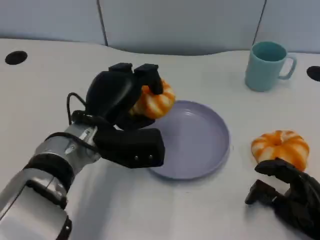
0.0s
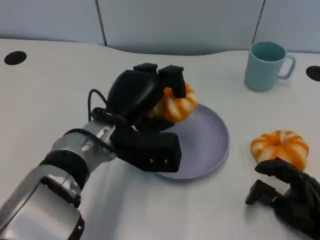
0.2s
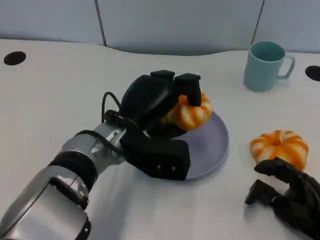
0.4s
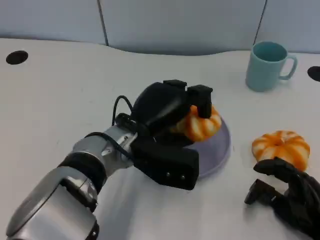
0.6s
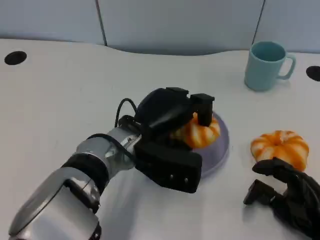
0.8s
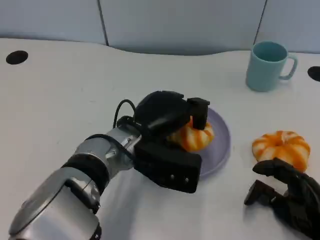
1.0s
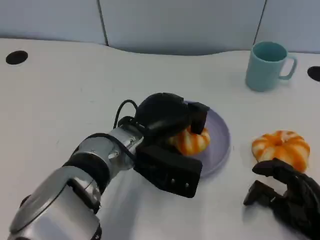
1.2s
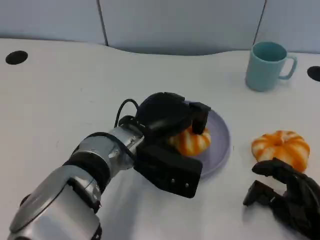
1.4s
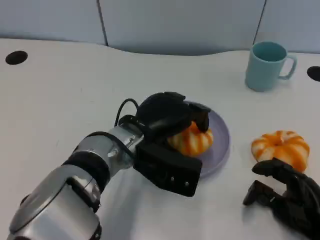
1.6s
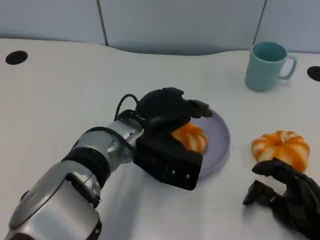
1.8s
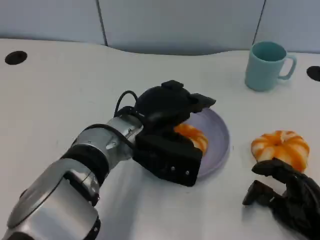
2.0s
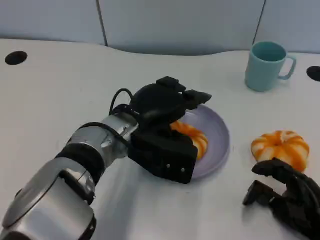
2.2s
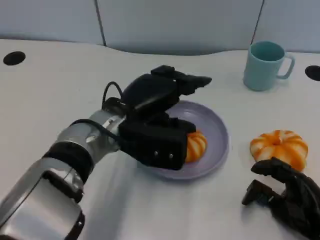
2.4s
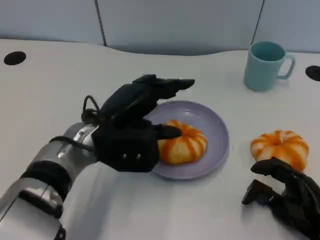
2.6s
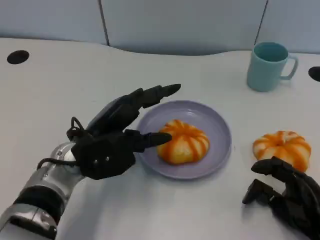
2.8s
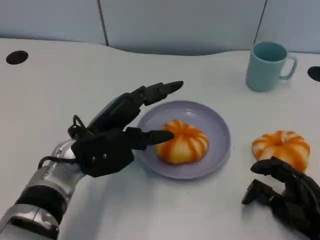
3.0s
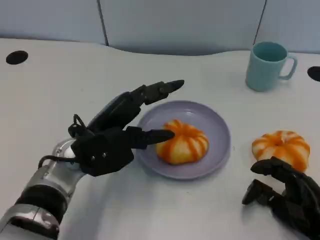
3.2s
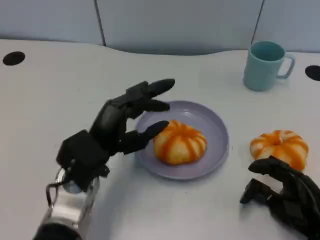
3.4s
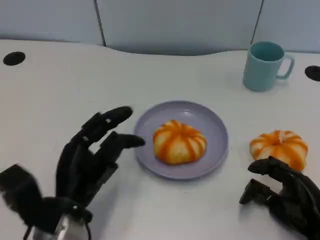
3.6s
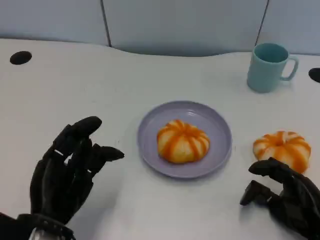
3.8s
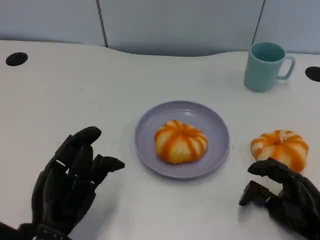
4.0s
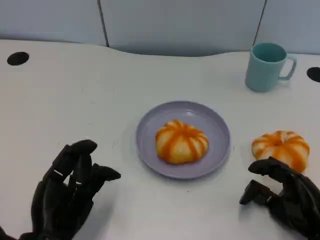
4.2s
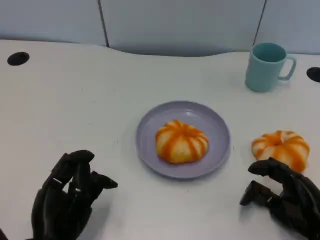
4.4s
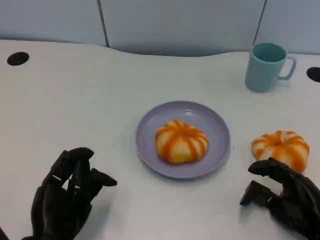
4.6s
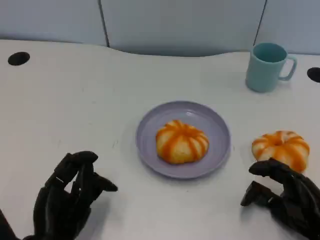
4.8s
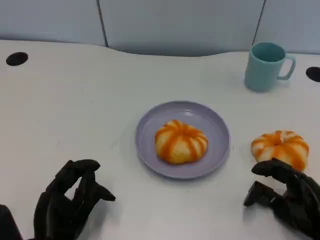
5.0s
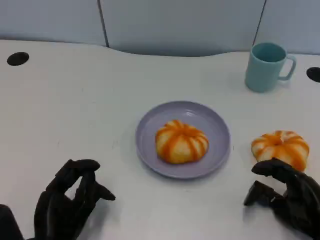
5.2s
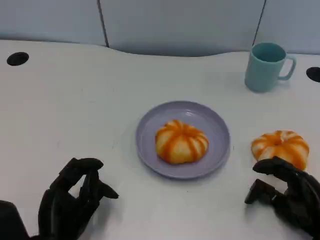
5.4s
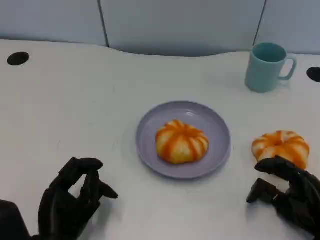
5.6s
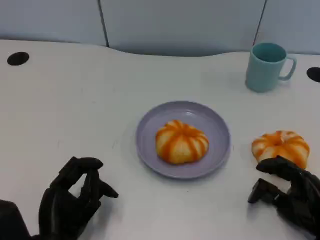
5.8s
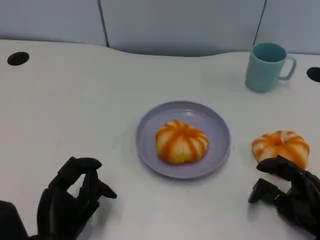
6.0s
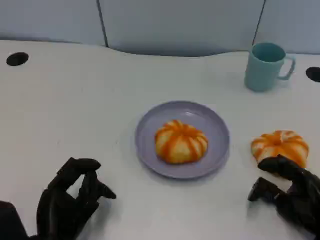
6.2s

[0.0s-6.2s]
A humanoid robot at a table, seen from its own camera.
Task of the whole recording: Grasp the bread from the table and place it into the plate.
1.6s to 3.2s: The left hand moves to the left, some 10 cm.
3.2s to 4.6s: The left hand heads backward, downward and to the left, covering some 15 cm.
4.6s to 6.2s: There are only small adjustments of the hands.

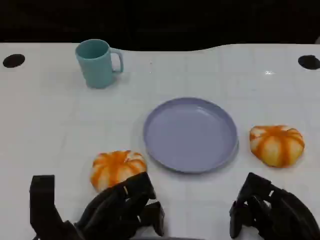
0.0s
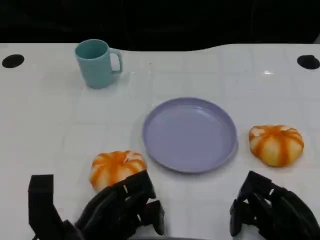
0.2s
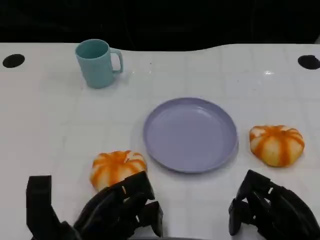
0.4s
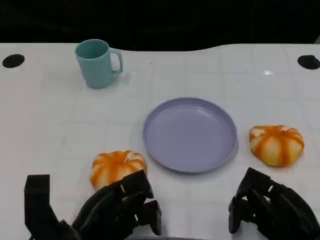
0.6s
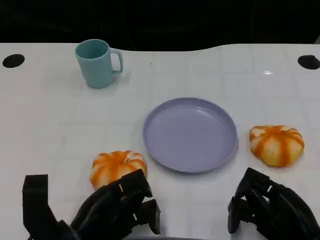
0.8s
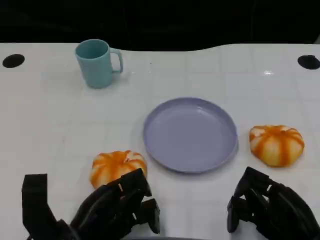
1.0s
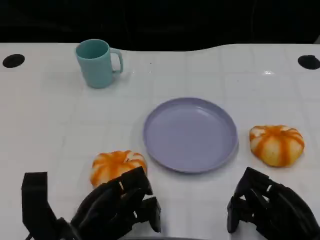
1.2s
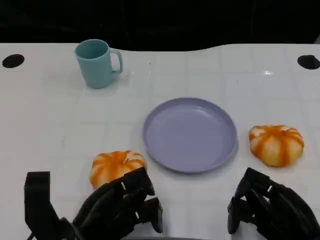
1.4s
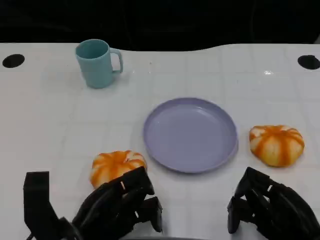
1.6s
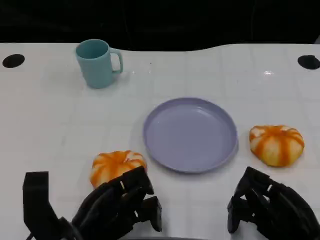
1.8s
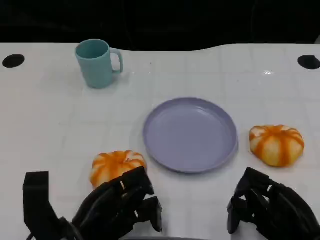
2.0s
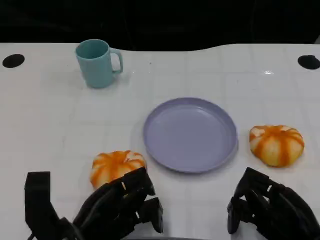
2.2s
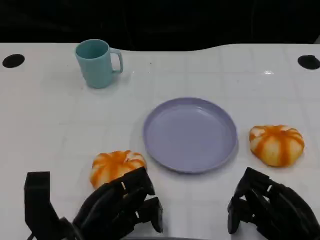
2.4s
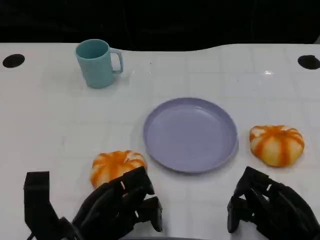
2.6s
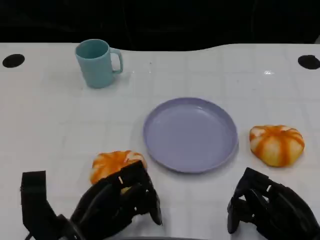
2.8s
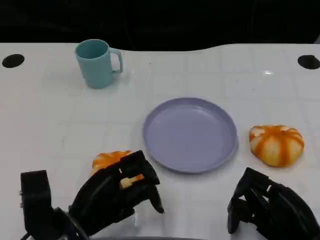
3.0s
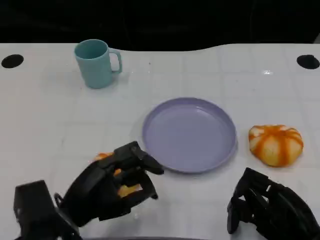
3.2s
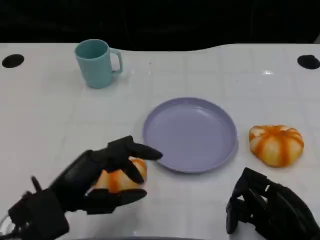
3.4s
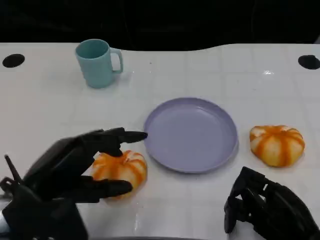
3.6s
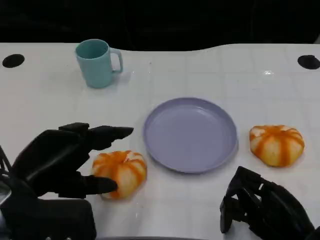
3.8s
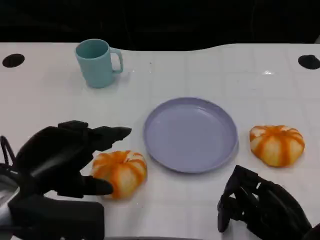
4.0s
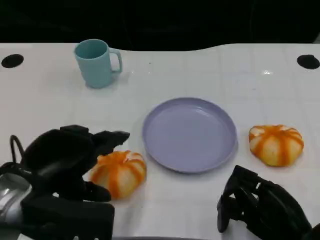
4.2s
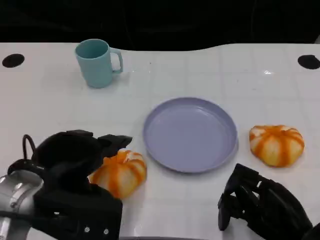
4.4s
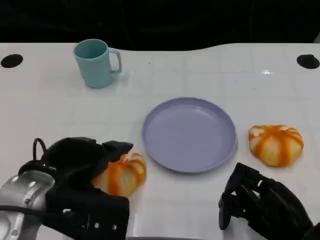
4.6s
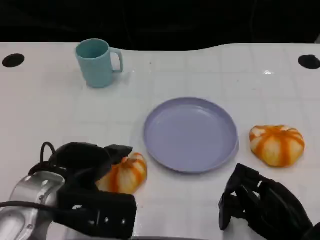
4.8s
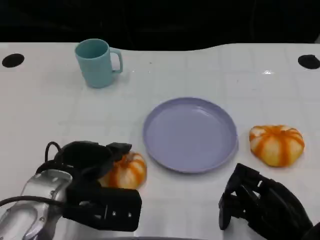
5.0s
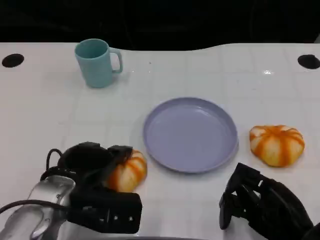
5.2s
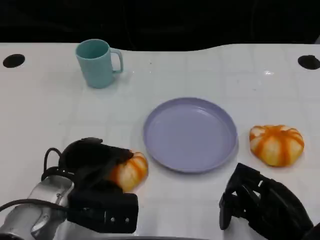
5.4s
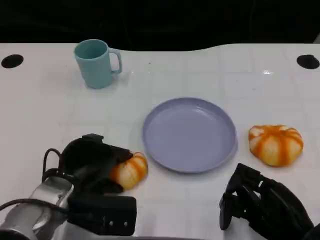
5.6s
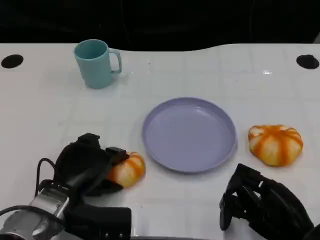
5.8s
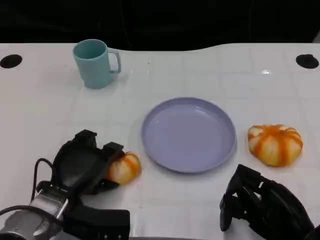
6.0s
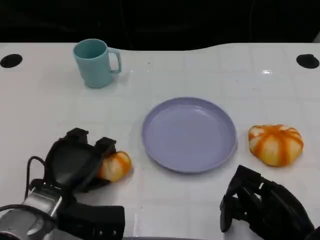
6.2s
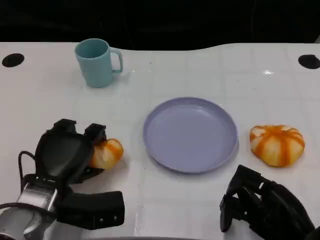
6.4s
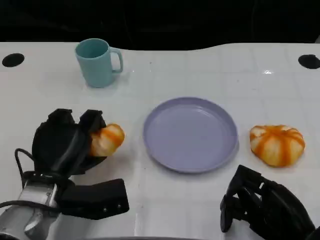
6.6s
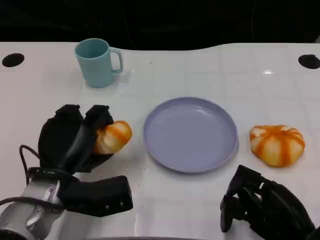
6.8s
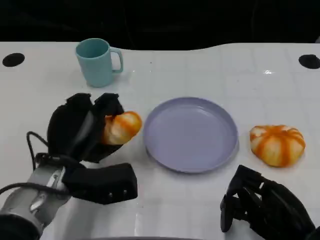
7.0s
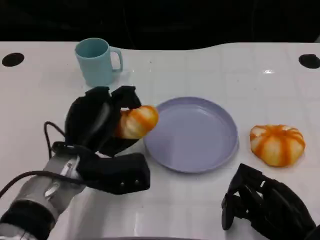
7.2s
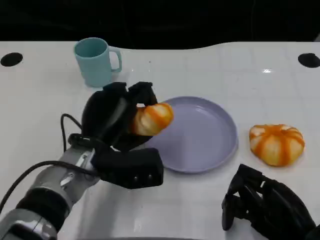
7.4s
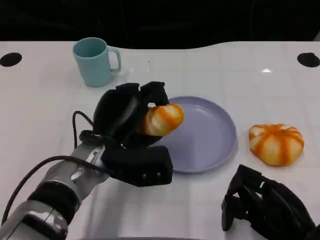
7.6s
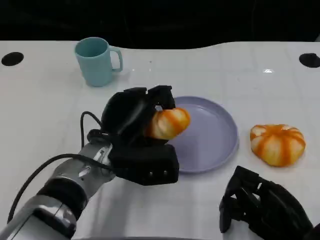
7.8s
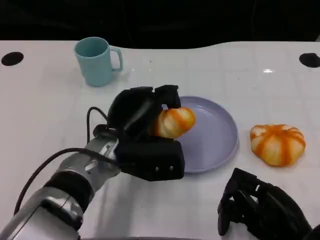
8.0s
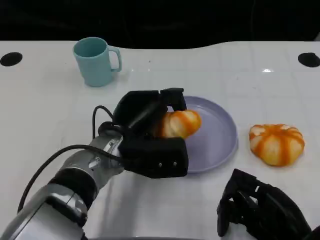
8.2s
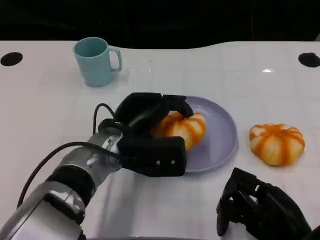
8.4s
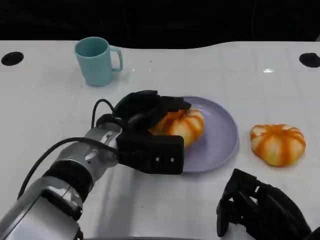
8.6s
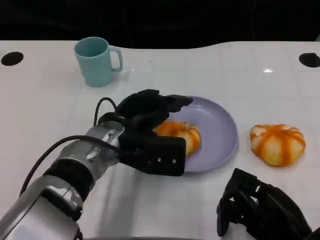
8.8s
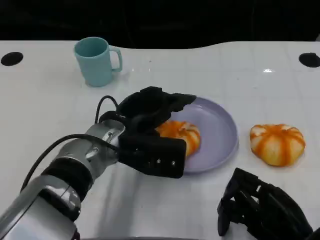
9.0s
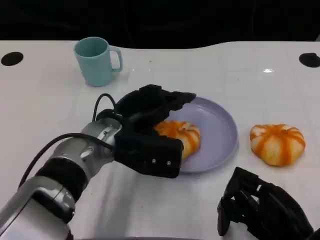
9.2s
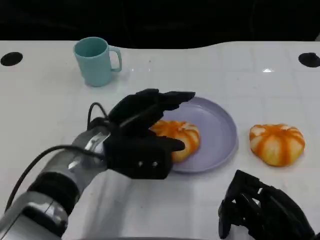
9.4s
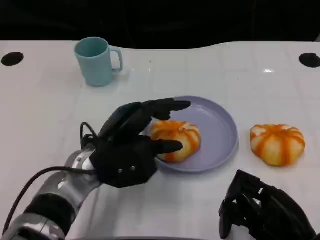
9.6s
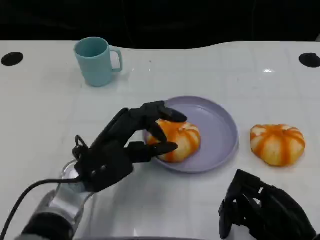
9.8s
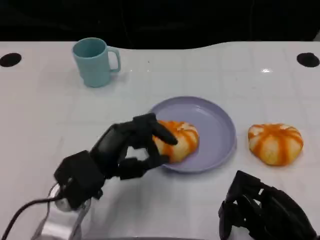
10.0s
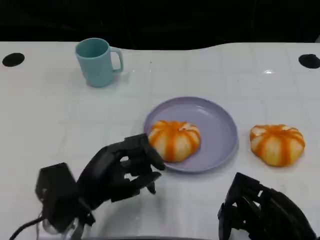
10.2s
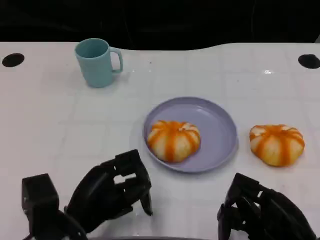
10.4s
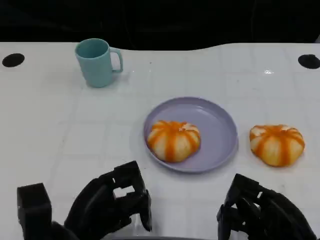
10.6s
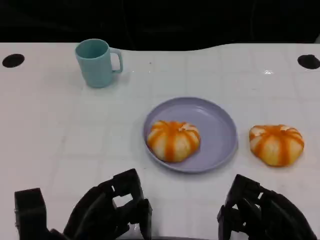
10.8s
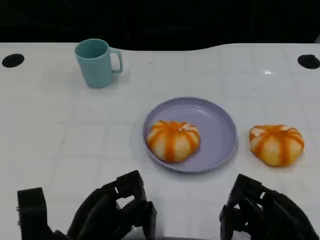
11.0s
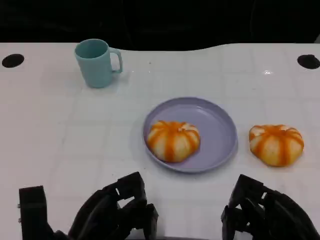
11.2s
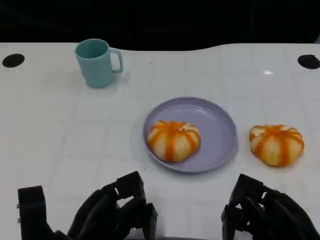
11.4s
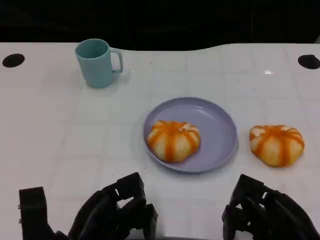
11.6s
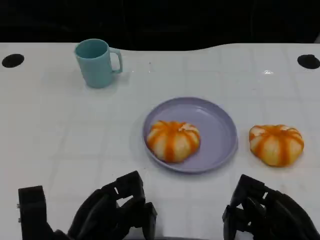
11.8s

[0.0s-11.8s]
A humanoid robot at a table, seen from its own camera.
Task of the whole recording: Grasp the bread from the table and place it into the plate.
0.0s to 1.4s: The two hands keep their place.
3.0s to 4.4s: The left hand shifts some 10 cm upward.
4.4s to 6.0s: The left hand heads downward, covering about 10 cm.
6.0s to 7.4s: The left hand is displaced to the right and upward by roughly 10 cm.
8.8s to 10.4s: The left hand goes some 15 cm backward, to the left and downward.
10.4s to 11.8s: The hands move only a little.

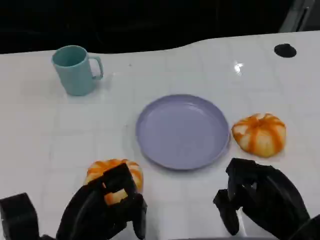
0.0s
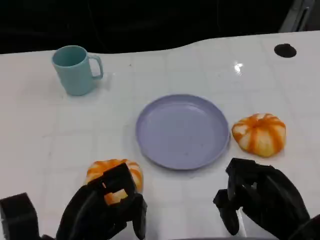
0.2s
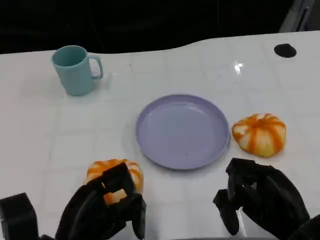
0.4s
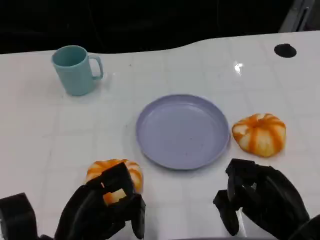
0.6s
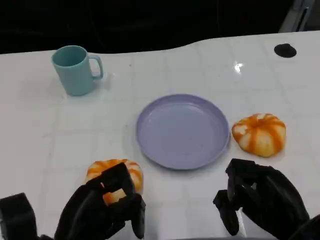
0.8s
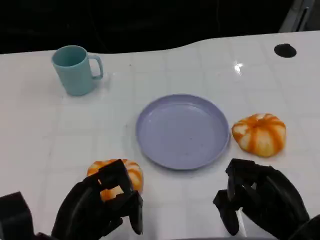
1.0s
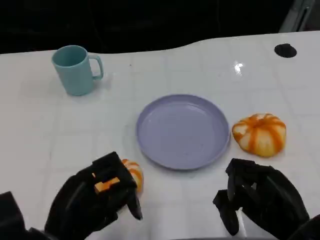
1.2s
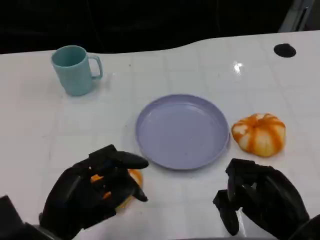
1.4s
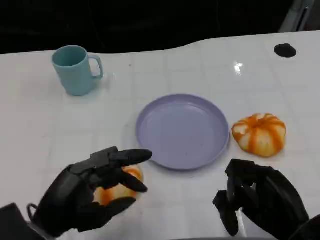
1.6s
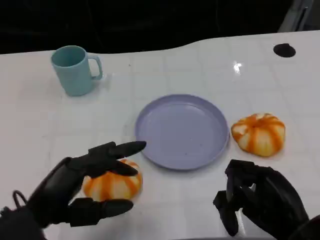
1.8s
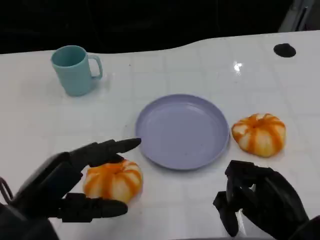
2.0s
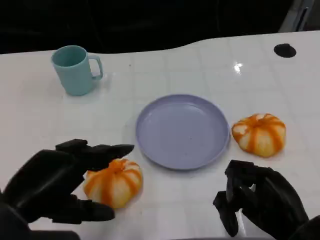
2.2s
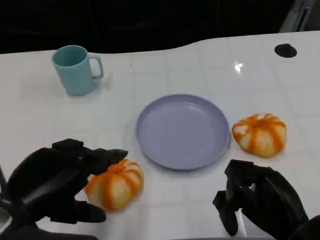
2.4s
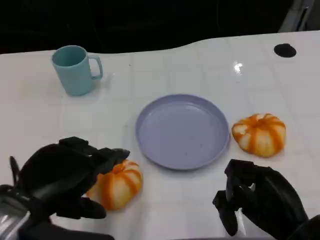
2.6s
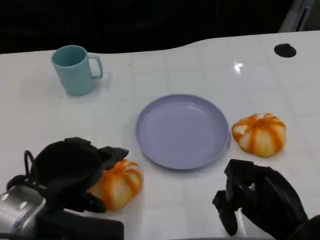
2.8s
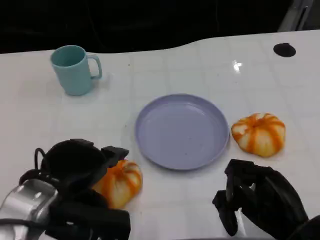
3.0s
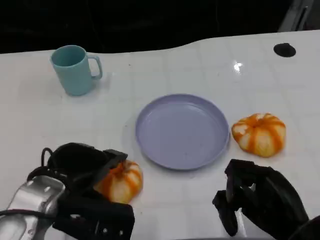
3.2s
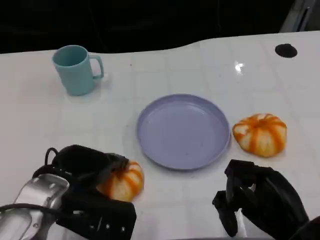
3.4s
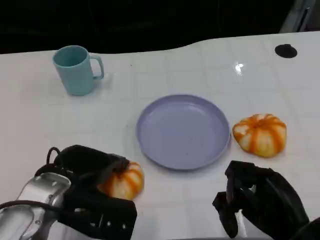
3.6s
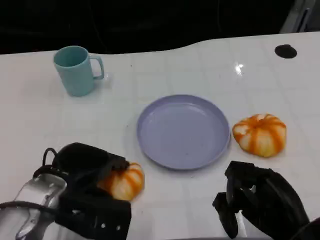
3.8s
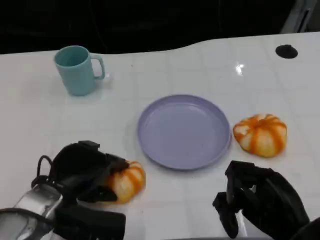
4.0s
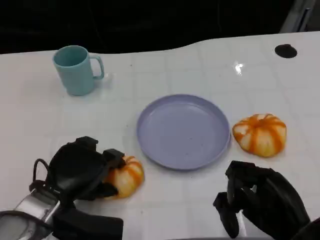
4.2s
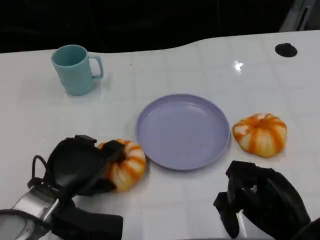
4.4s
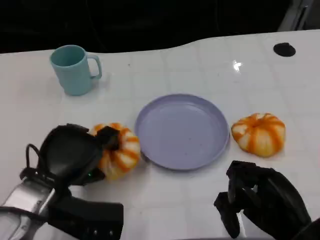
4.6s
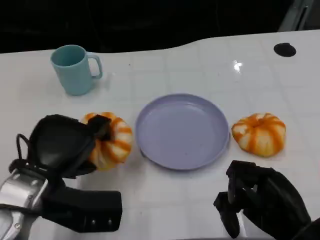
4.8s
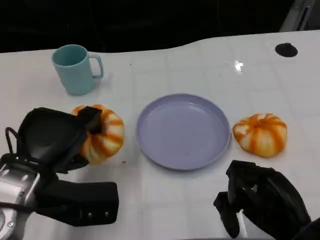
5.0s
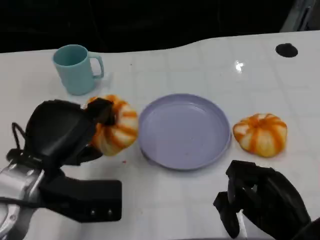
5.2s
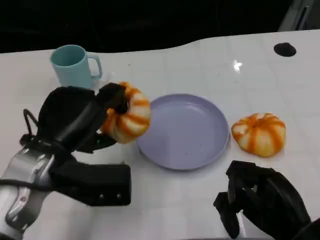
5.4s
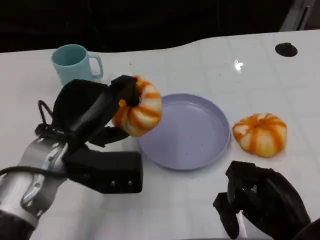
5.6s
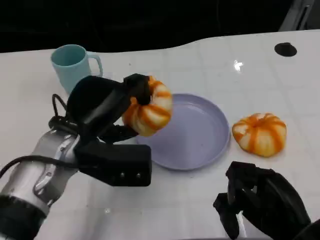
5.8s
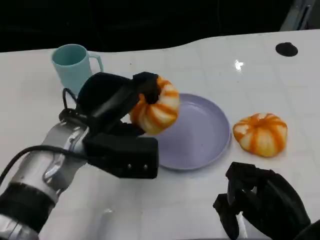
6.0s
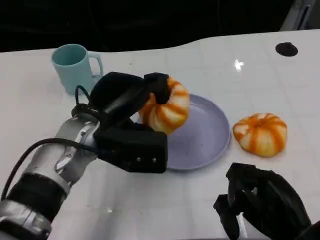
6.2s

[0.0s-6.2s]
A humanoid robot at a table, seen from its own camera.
Task of the whole recording: Grasp the bread from the table and place it into the plate.
1.6s to 3.2s: The left hand goes roughly 5 cm forward.
4.6s to 6.2s: The left hand is displaced to the right and forward by approximately 10 cm.
